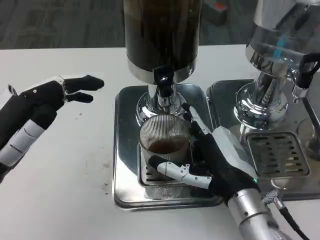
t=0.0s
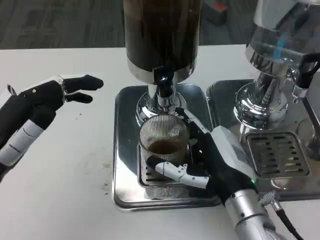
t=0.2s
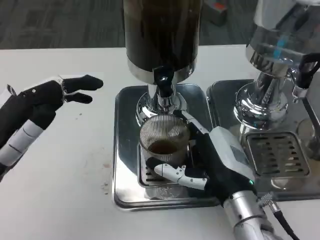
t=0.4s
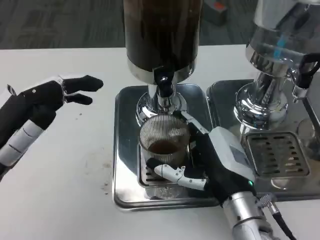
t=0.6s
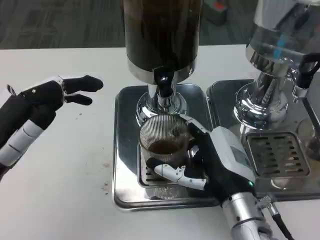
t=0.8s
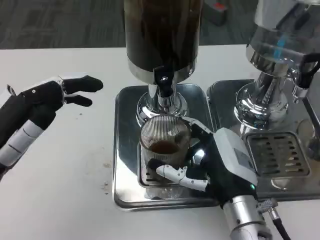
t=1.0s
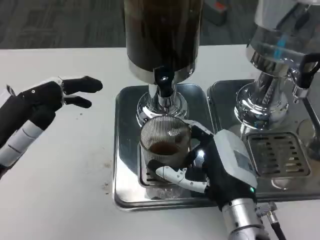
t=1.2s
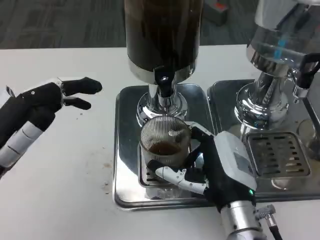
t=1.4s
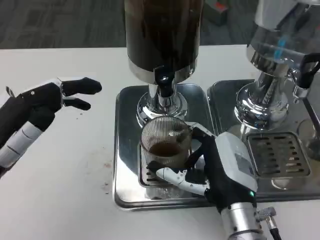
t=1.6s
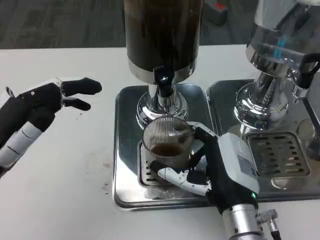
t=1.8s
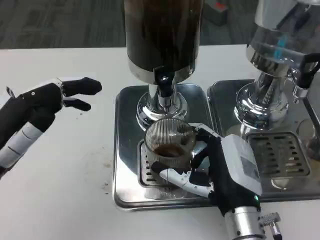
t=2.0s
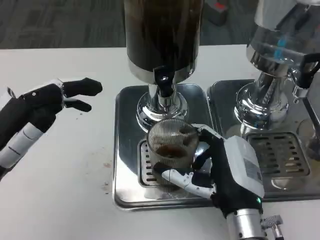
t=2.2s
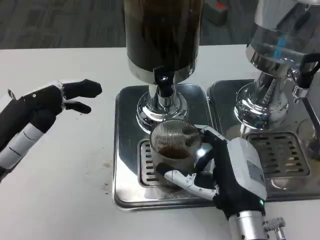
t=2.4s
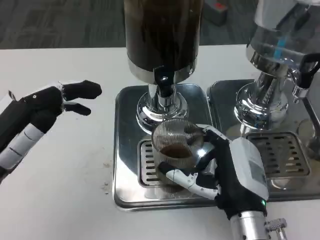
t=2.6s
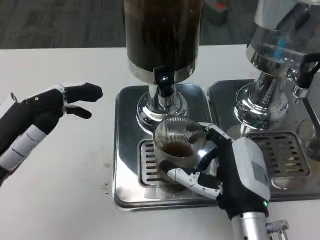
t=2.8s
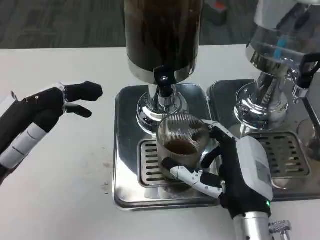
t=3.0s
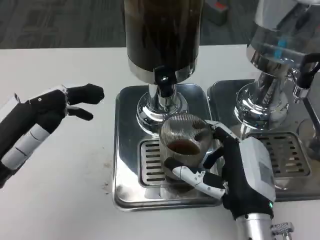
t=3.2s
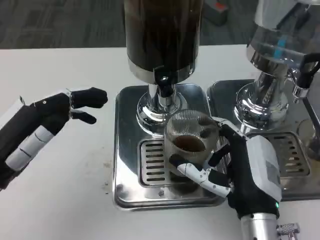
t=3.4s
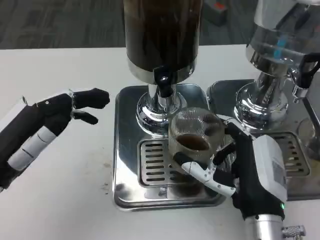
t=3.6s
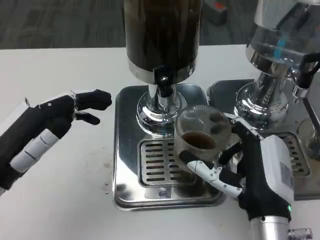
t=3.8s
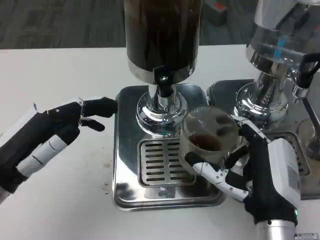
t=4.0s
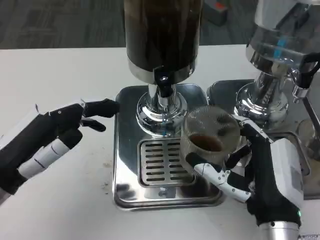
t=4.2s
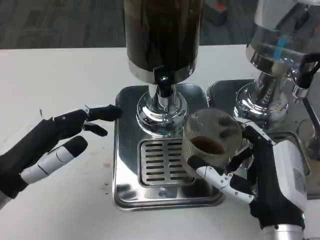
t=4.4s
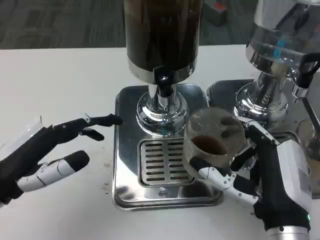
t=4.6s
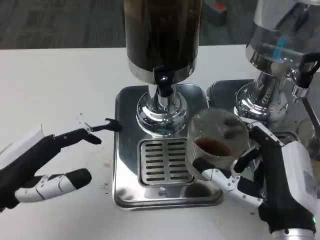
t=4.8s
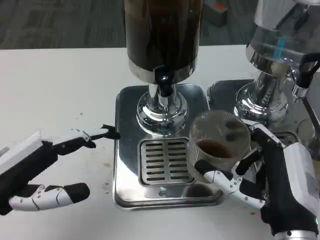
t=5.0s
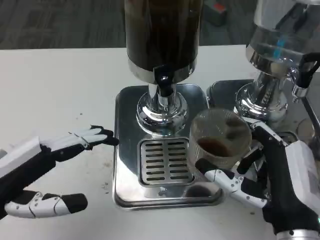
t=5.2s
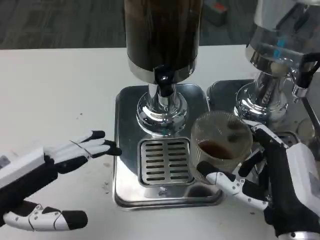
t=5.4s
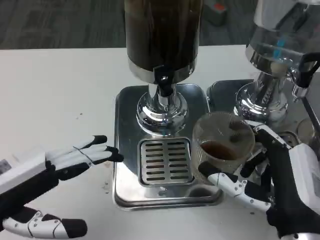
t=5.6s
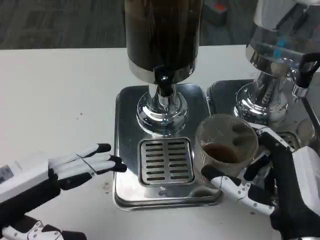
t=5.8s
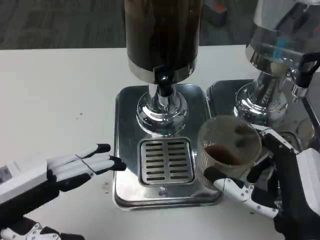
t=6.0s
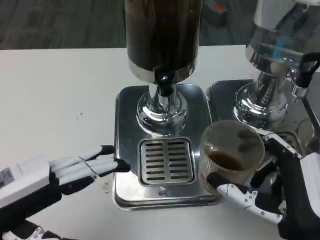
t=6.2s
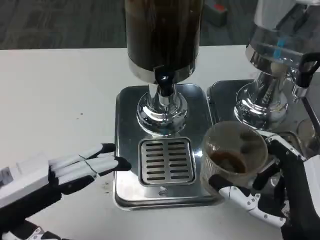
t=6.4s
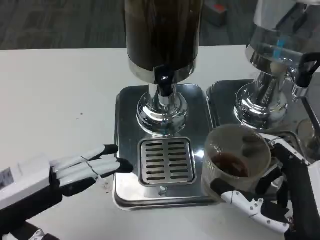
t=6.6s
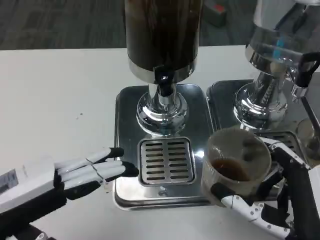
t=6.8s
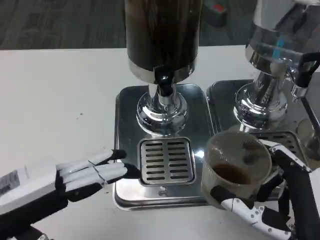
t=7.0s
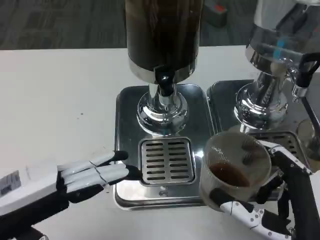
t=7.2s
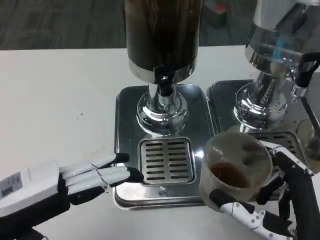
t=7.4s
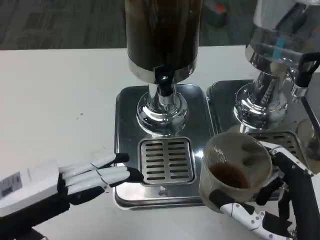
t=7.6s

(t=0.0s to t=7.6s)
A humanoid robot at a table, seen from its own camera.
Task of the whole recording: Grasp the cup under the faucet to collect the drink, then remove the cup.
t=0.0s - t=3.0s: The hands make only small movements.
t=6.0s - t=7.6s: The hands make only small movements.

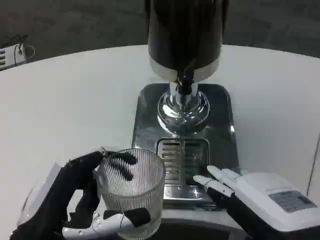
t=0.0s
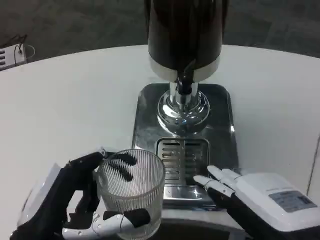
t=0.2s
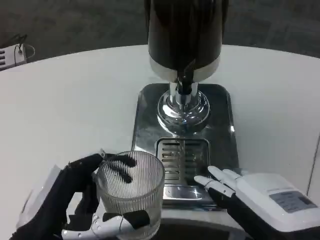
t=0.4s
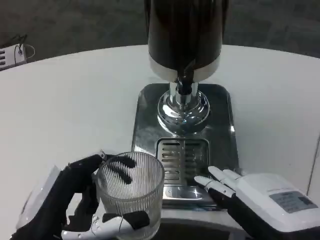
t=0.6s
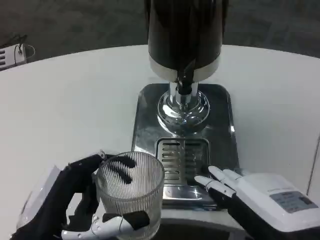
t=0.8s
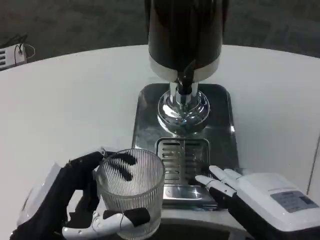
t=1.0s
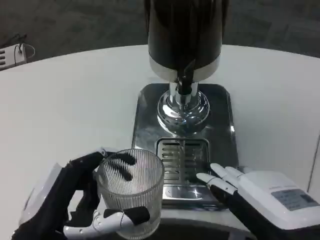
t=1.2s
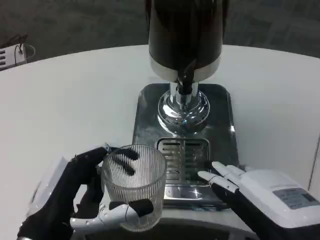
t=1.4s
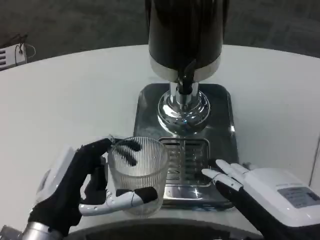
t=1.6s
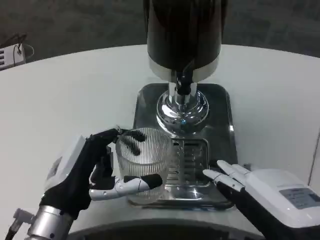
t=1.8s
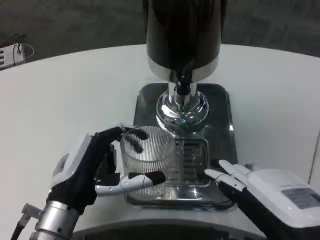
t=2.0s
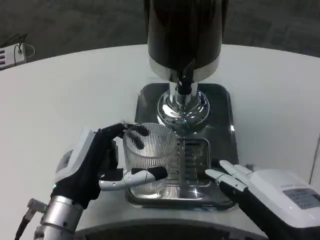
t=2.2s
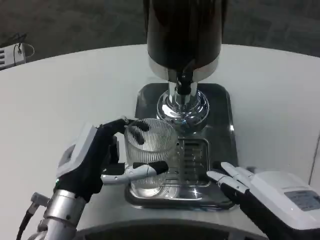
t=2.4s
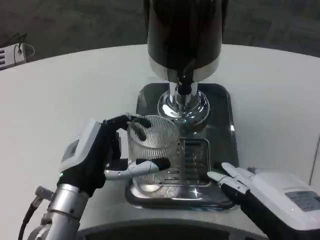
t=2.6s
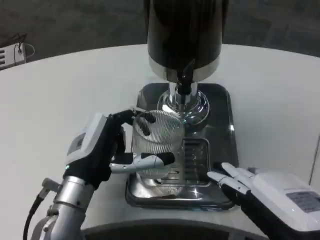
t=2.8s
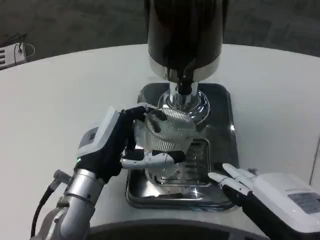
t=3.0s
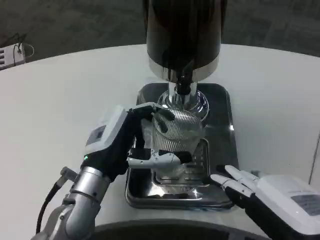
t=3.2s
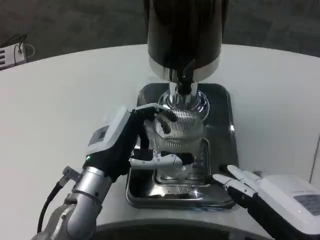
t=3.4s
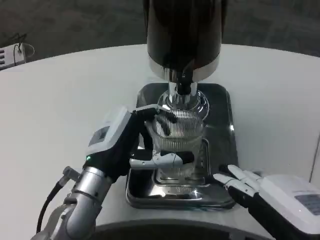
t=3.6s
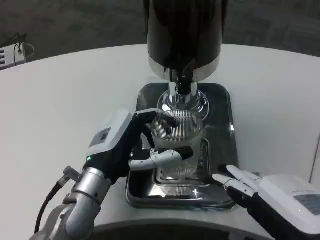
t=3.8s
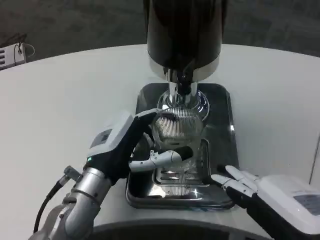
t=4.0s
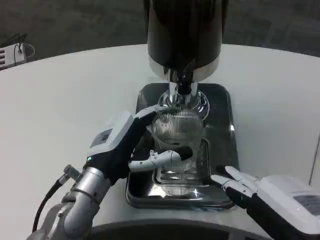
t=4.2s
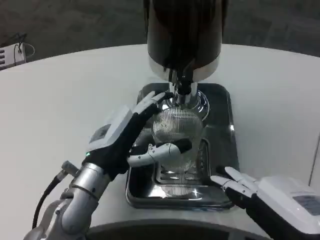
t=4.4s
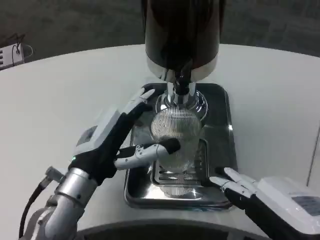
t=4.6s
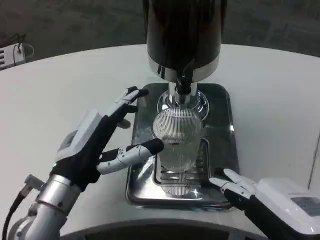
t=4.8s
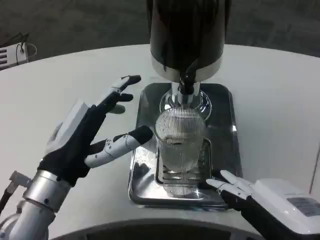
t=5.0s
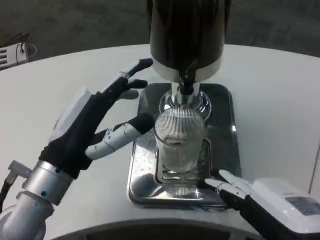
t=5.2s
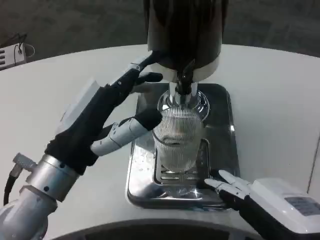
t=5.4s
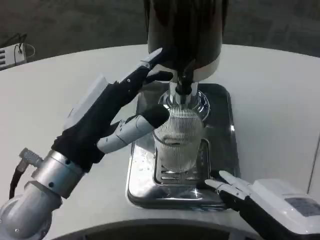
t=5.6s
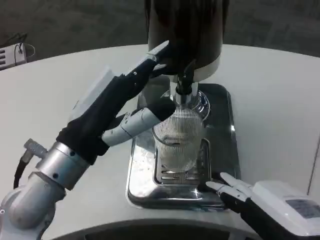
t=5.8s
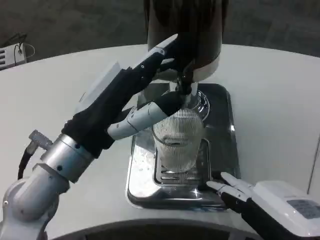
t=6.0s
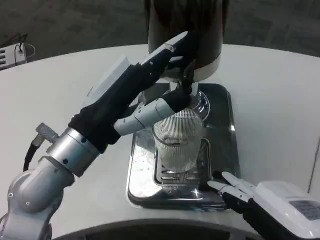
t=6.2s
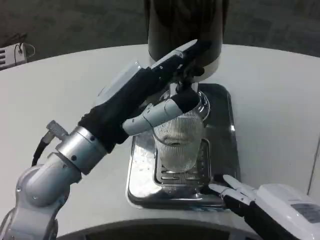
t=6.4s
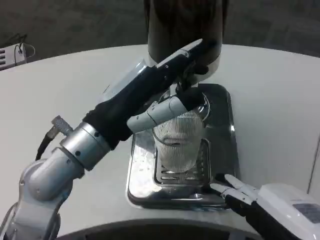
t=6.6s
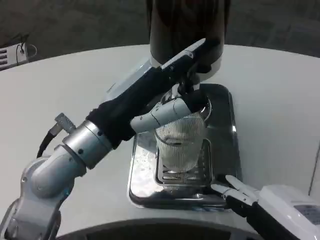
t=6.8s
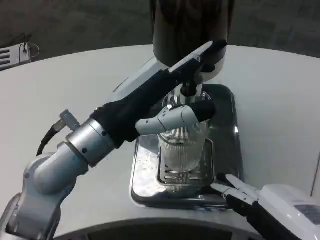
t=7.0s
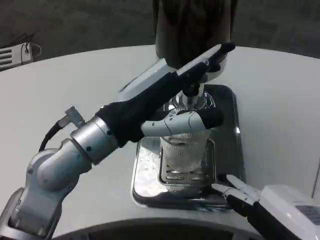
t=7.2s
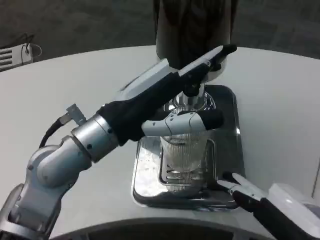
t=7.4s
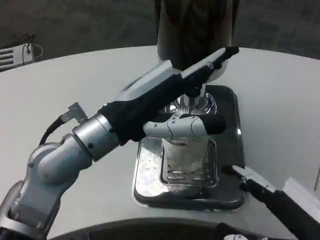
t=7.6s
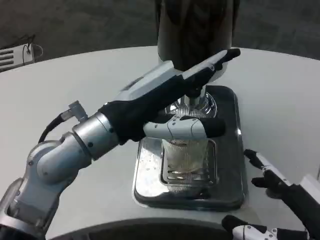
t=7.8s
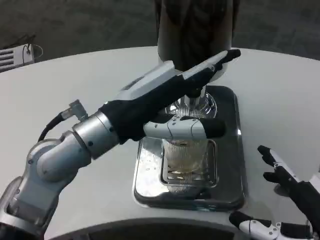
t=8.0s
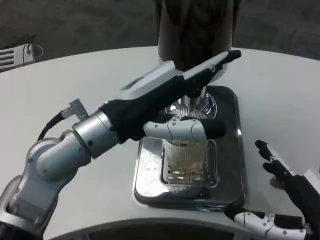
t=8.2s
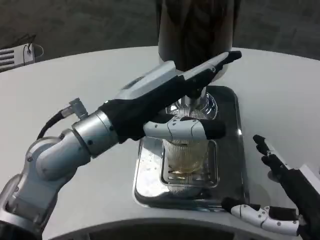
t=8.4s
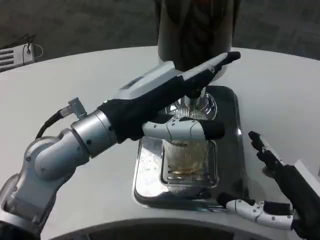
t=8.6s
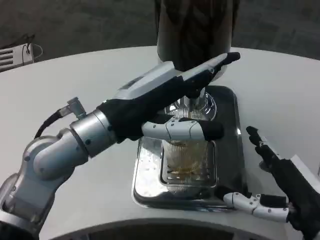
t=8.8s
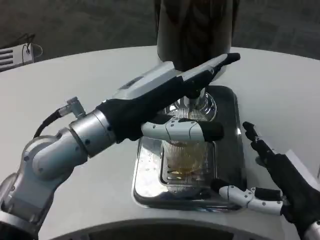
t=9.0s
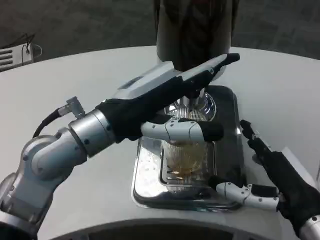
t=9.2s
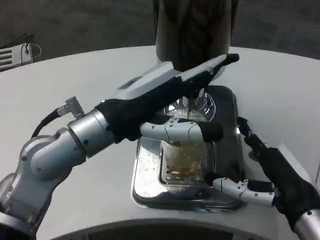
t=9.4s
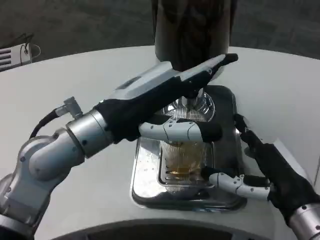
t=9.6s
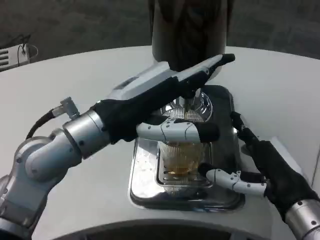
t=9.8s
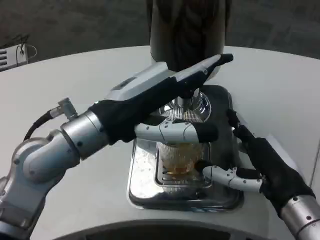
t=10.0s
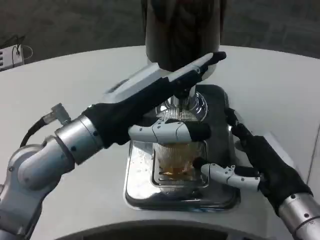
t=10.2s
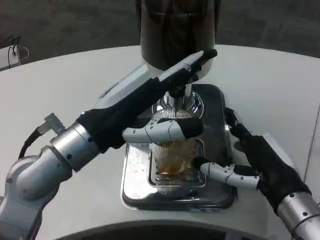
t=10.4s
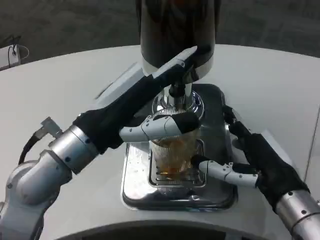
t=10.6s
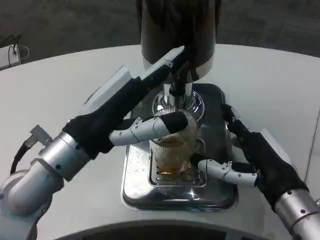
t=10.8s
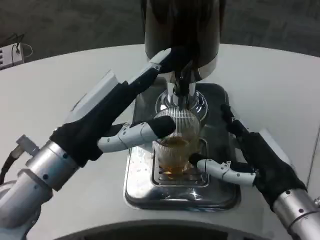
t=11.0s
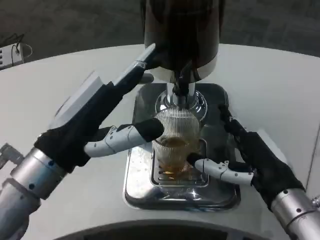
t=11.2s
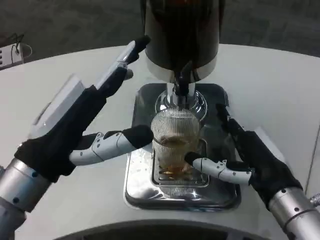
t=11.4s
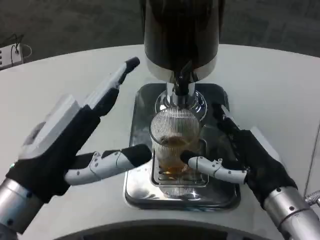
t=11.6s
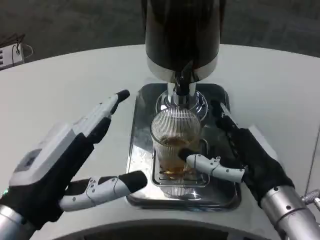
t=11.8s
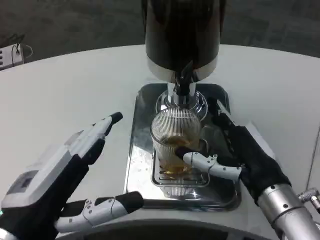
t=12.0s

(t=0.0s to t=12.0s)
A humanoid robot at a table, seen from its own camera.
Task of the whole recording: Grasp the cup under the faucet to collect the drink, then remove the cup.
t=0.0s - t=1.6s: The hands stay close to where they were, moving slightly.
t=1.6s - t=3.0s: The left hand shifts about 10 cm forward.
t=3.0s - t=4.4s: The hands make only small movements.
t=4.4s - t=6.0s: The left hand heads upward, covering some 10 cm.
t=7.6s - t=9.0s: The right hand is displaced forward by some 10 cm.
t=10.4s - t=12.0s: The left hand travels backward and downward by some 15 cm.

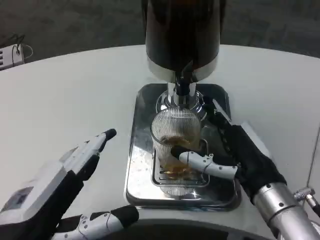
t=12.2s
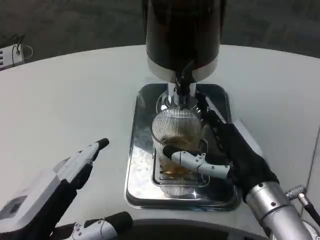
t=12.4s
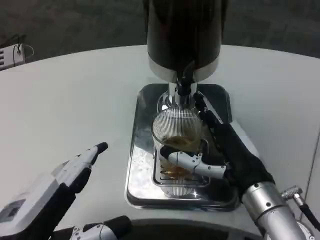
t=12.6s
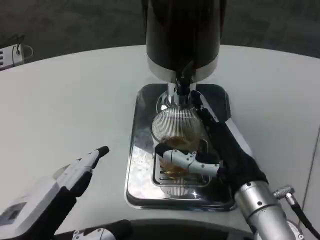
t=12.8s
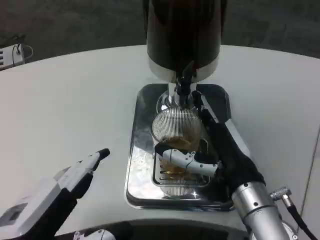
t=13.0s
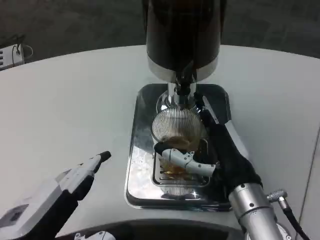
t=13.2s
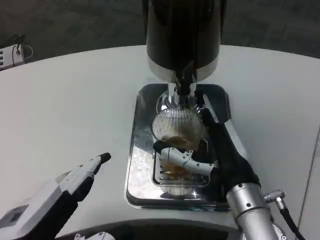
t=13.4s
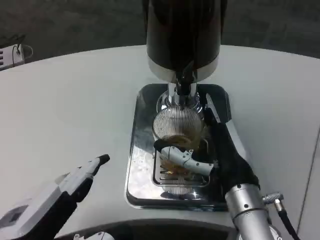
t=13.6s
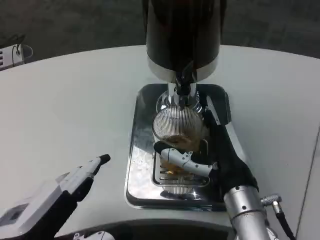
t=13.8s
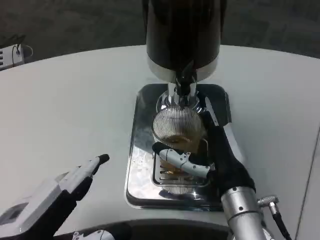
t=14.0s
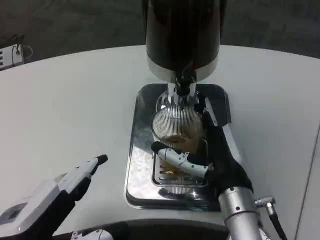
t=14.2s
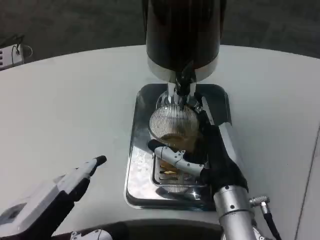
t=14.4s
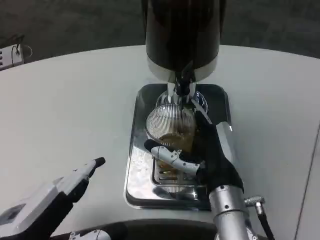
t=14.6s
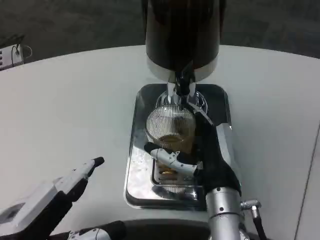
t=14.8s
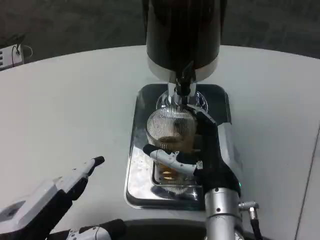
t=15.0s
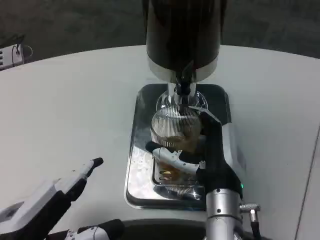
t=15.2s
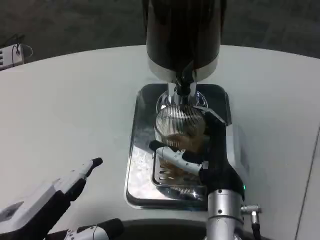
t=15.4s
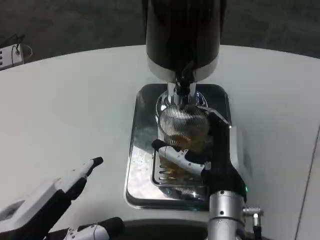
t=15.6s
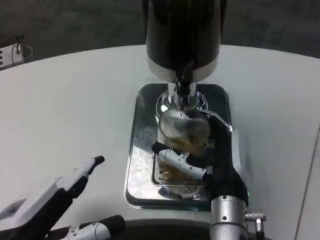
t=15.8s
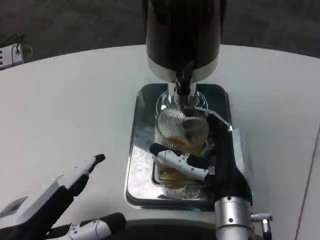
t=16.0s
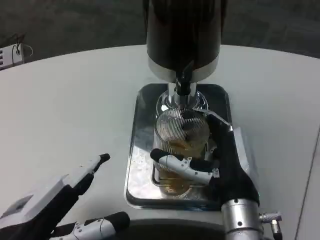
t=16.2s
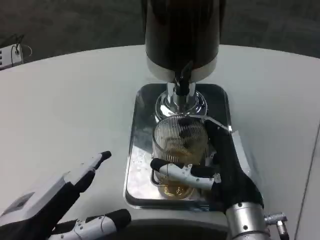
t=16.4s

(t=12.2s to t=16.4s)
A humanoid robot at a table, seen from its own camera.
Task of the whole recording: Grasp the cup under the faucet to collect the drink, then remove the cup.
t=12.2s - t=13.6s: The right hand ends up about 5 cm from where it was.
t=13.6s - t=16.4s: The hands move only a little.
